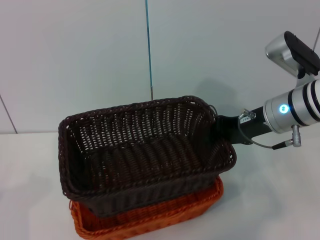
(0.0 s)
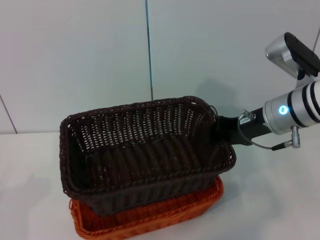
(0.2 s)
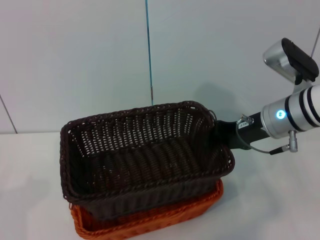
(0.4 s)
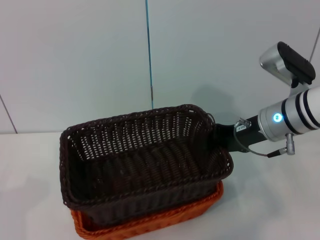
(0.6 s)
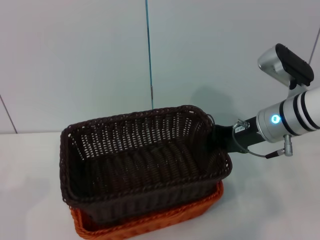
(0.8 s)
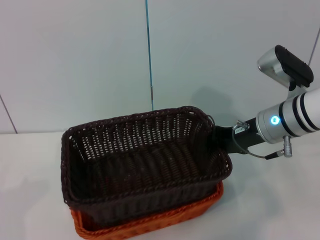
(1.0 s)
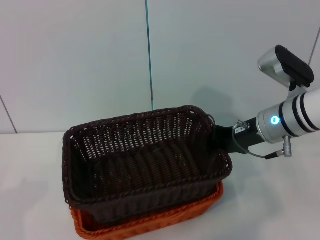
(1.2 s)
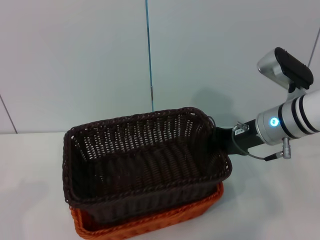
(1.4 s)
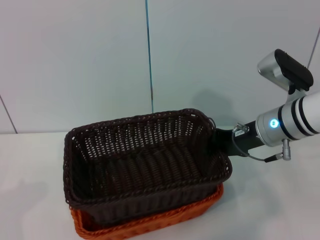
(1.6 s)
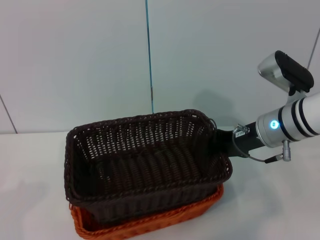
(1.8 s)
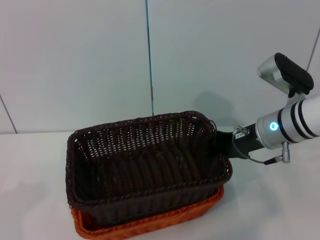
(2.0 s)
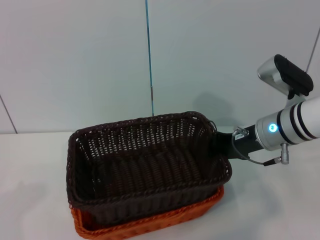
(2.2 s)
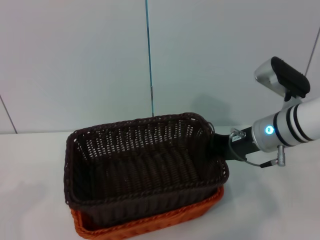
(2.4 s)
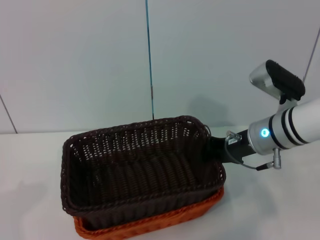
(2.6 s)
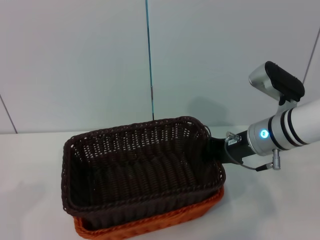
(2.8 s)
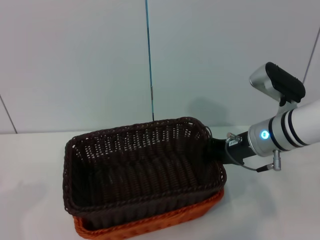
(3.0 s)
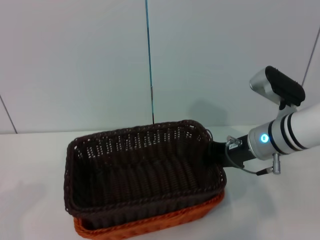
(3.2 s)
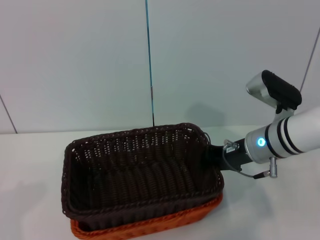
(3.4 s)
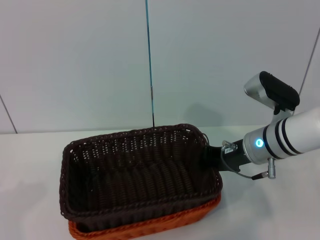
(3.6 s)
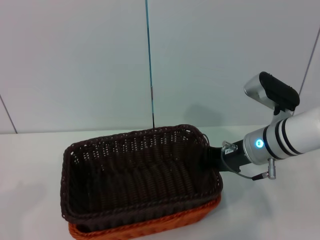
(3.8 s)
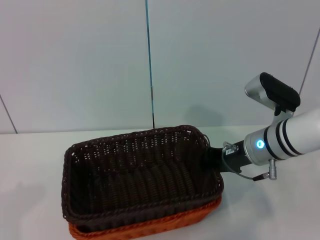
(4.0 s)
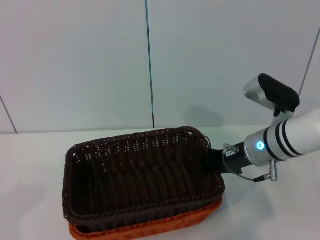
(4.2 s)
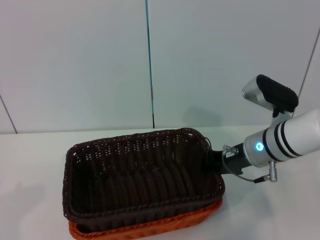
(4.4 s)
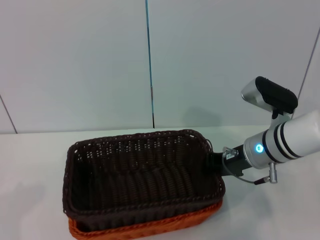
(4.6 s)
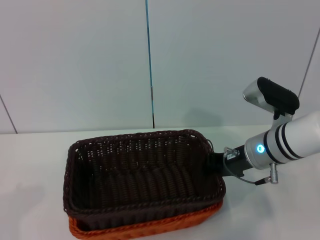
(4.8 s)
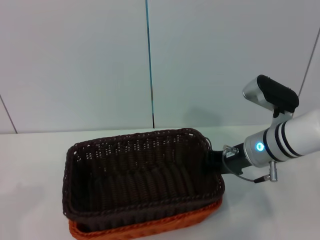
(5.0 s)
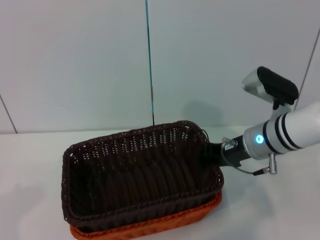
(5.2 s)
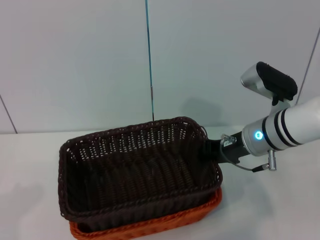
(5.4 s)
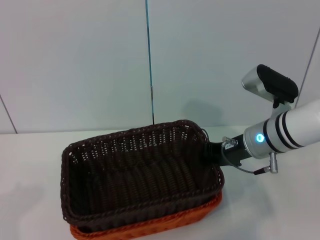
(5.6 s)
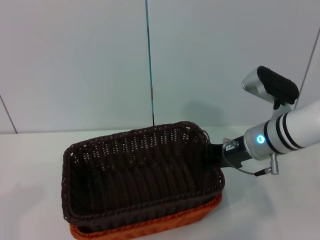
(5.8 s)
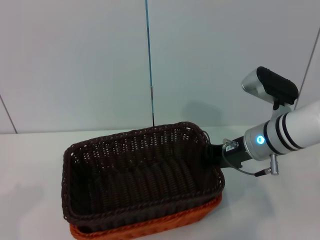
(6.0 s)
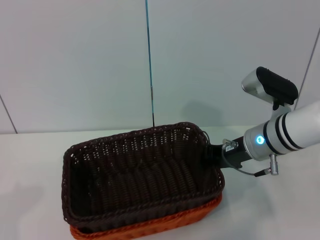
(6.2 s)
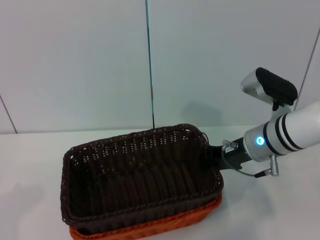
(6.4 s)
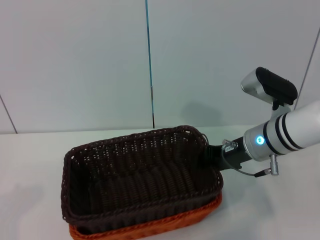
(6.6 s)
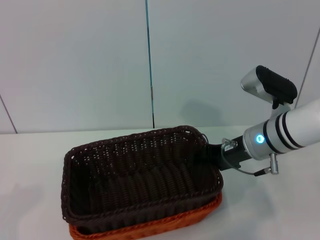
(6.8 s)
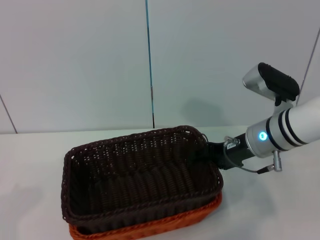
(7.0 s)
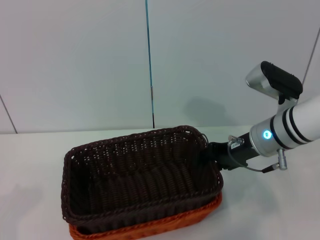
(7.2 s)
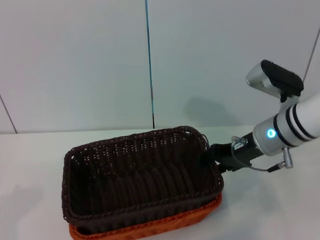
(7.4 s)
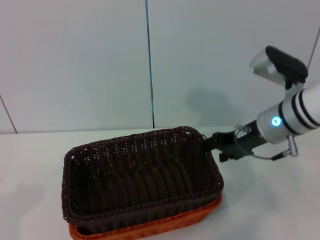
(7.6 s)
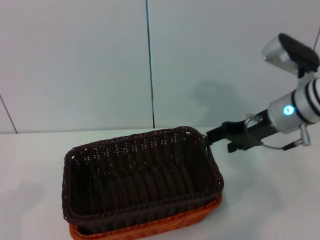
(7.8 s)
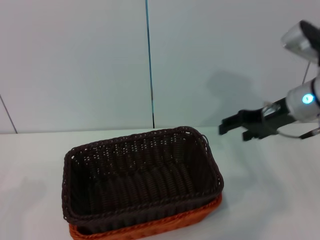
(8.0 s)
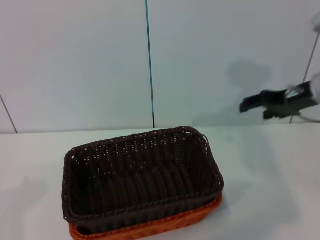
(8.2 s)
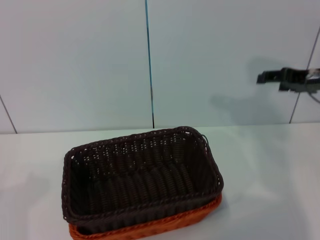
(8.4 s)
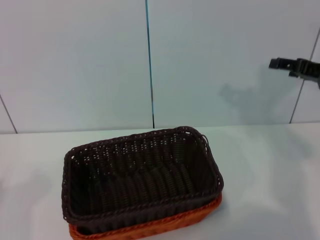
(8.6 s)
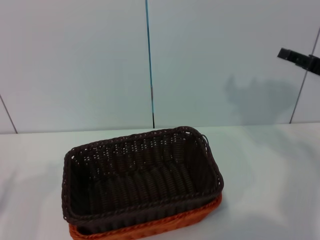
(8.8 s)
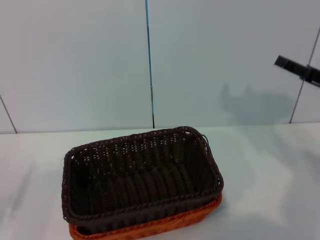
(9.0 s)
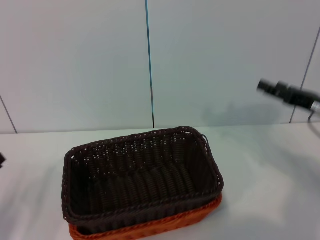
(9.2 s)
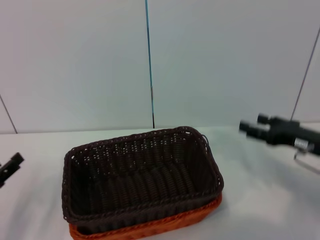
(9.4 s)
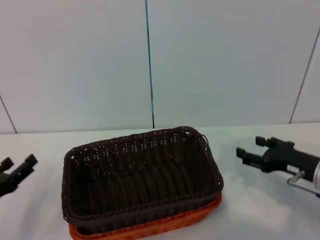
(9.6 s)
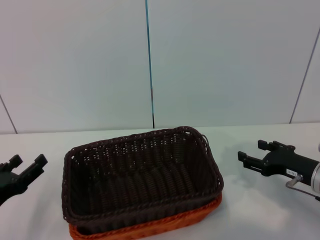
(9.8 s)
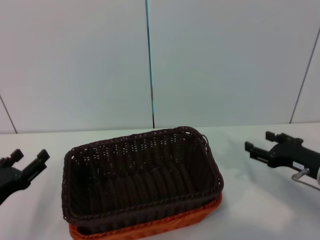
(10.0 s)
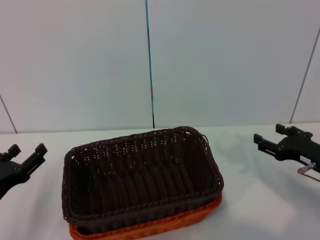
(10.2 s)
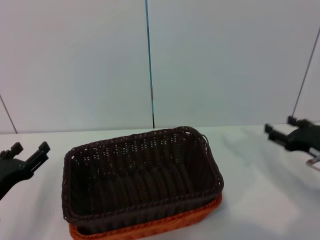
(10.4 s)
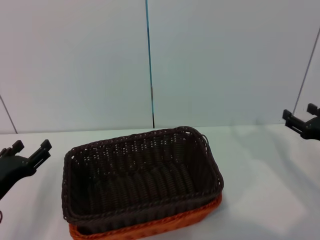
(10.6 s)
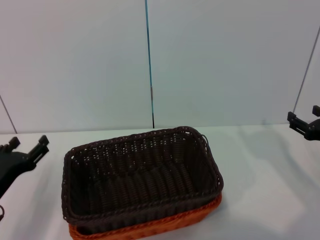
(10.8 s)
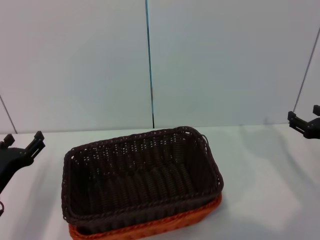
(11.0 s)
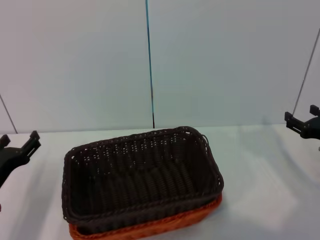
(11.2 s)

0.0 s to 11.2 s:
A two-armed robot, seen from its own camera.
Step, 0.0 to 7.4 s: Place the dark basket on the light basket with the right gripper.
0.0 to 3.2 s: There are only small adjustments of the grippers.
3.2 to 6.4 s: There are only small adjustments of the grippers.
6.4 to 8.0 s: The right gripper heads upward and to the right, covering roughly 10 cm, and opens.
8.0 to 9.6 s: The left gripper goes approximately 10 cm to the right. Meanwhile the right gripper goes about 15 cm downward, backward and to the right.
9.6 to 11.2 s: The left gripper shifts by some 5 cm.
